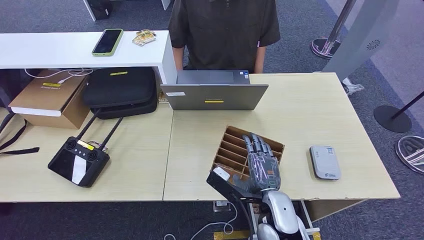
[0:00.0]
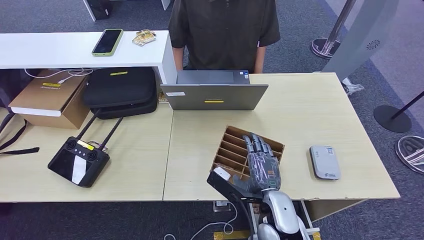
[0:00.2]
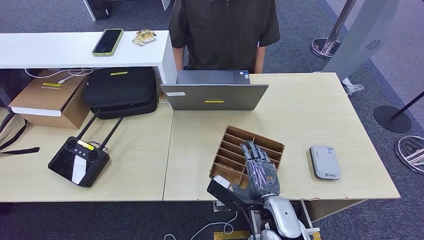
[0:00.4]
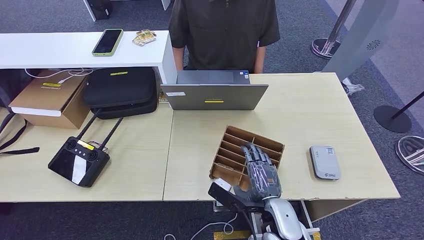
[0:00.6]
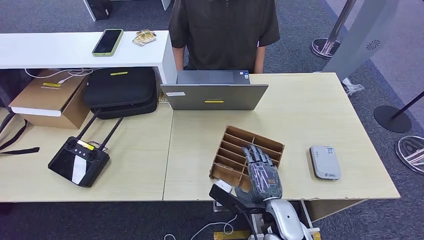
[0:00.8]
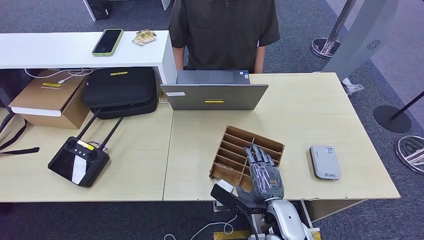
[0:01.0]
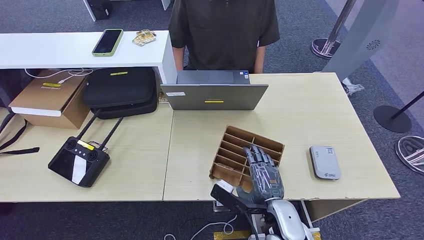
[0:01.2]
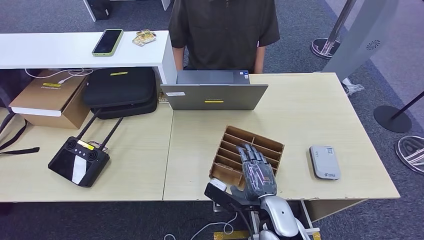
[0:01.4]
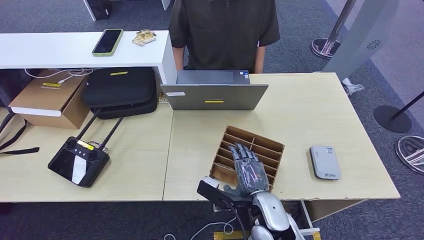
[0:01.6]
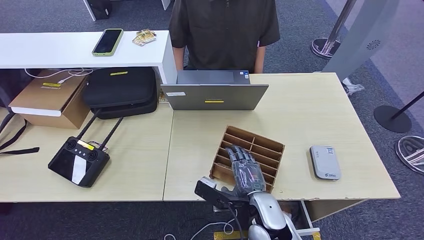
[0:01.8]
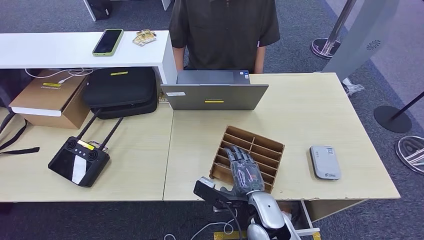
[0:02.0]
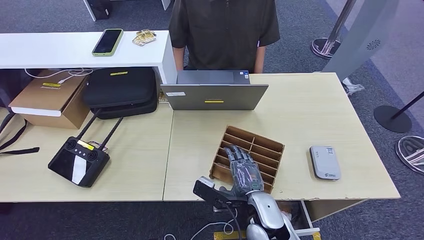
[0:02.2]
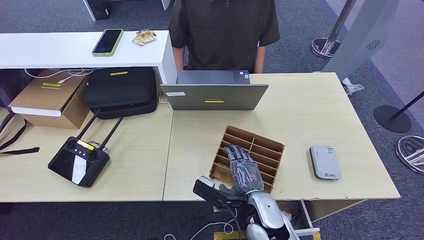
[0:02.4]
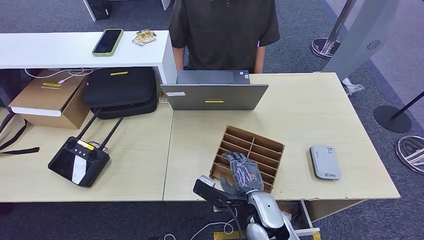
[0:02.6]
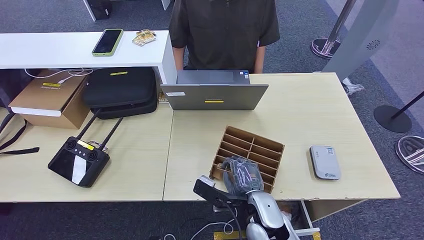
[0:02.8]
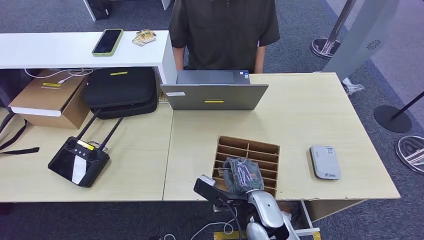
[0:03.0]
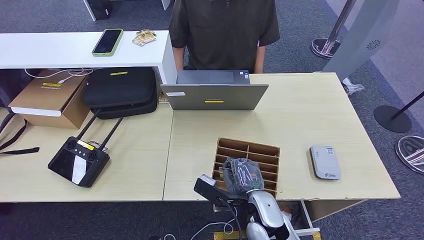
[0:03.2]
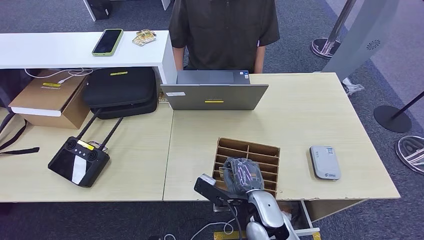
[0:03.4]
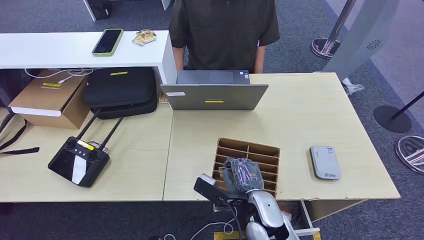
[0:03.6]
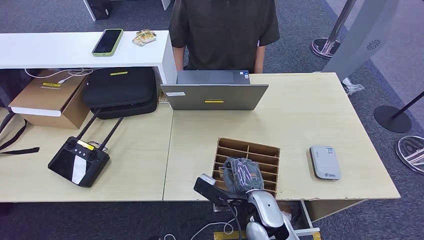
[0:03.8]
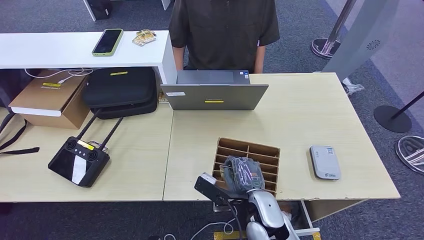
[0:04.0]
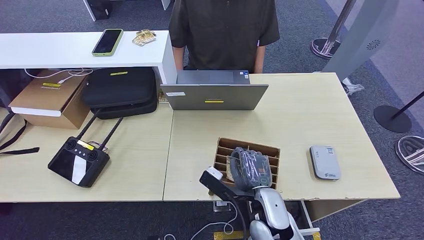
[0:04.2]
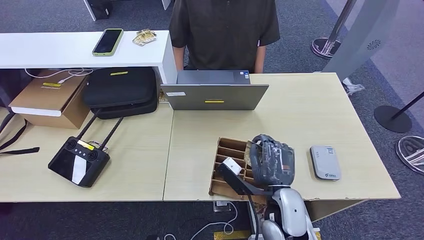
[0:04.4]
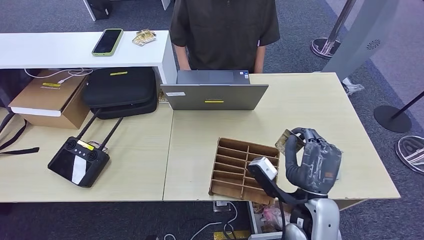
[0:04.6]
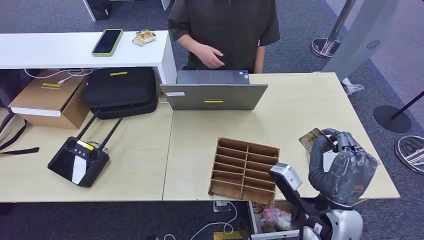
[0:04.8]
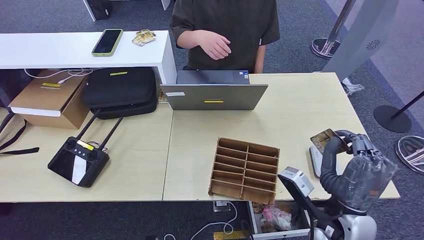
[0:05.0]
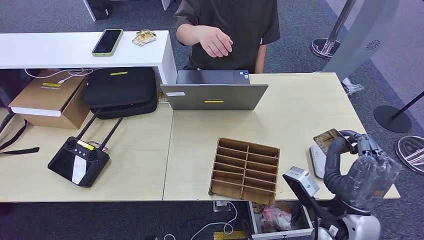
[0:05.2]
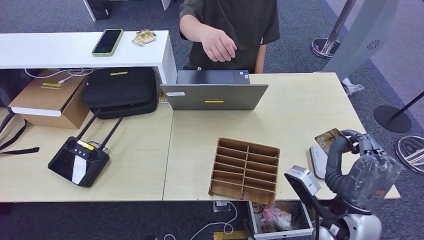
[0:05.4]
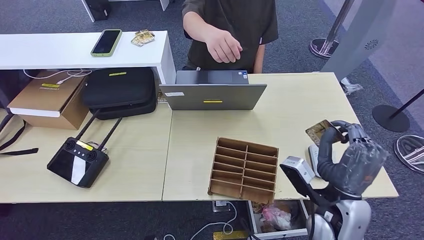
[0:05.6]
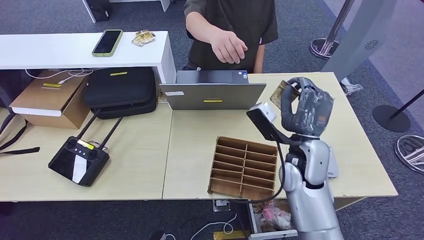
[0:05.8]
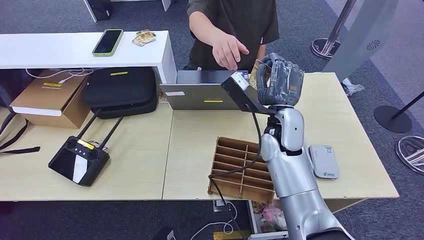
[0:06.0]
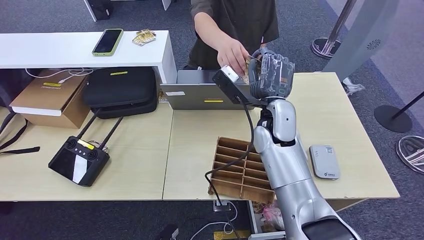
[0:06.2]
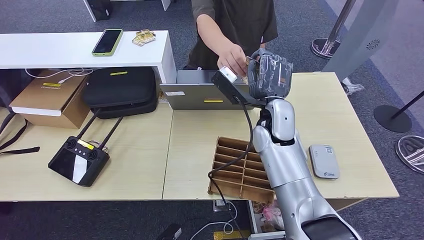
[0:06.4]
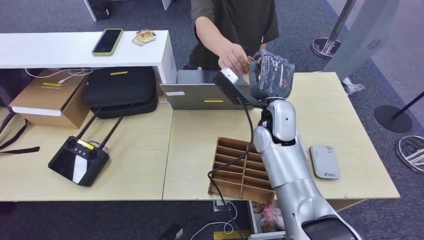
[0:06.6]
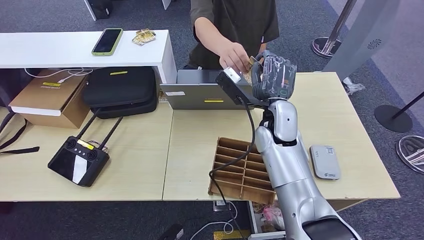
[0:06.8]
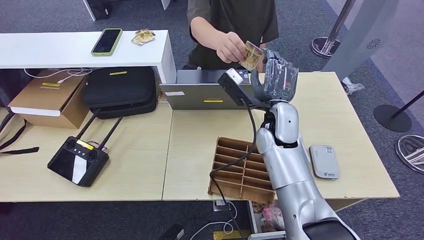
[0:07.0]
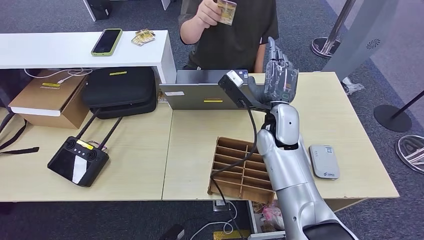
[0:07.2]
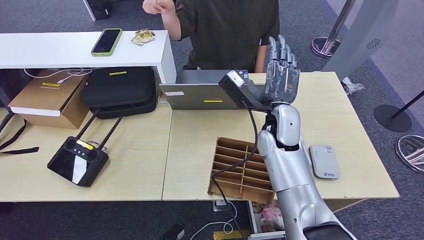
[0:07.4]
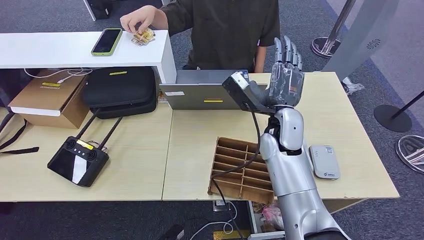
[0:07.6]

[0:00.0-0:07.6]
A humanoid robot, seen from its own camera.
Step, 0:00.0 to 0:04.2: Pick up the room key from the key card box.
Step, 0:04.4 to 0:07.6: Hand the room key to the person.
0:00.0 to 0:01.6: The hands make only small movements.
0:01.6 to 0:03.0: Both hands stay put.
0:03.0 to 0:04.6: The right hand shifts roughly 10 cm to the right and upward.
0:04.6 to 0:06.0: The right hand moves forward and upward, some 20 cm.
0:06.0 to 0:07.6: The hands move only a little.
